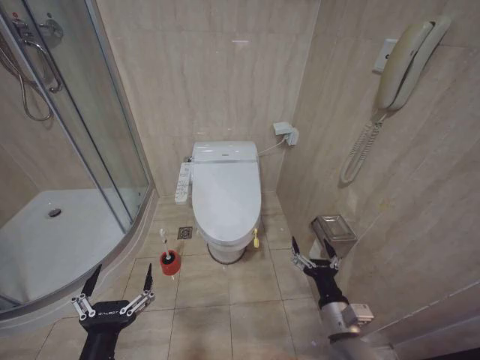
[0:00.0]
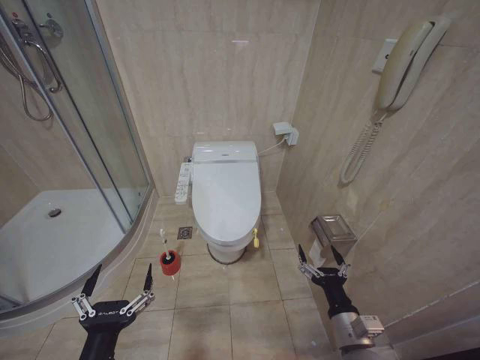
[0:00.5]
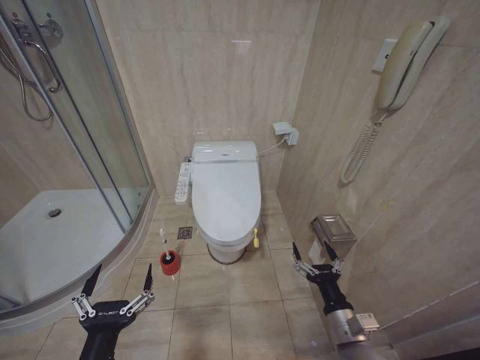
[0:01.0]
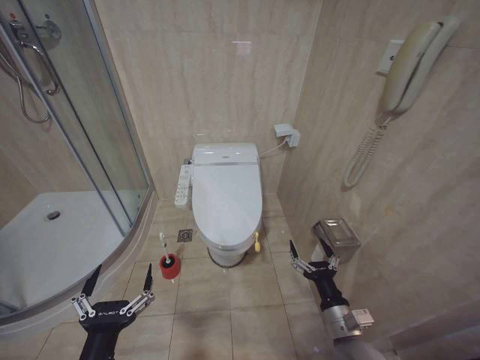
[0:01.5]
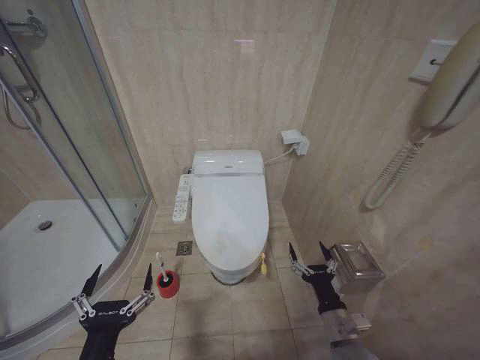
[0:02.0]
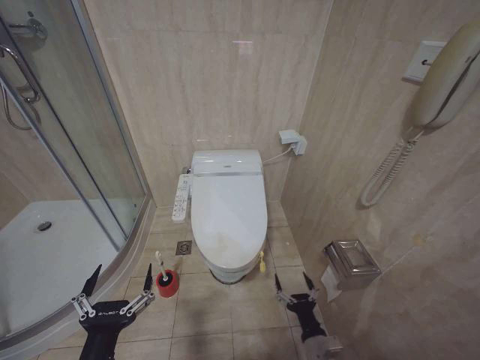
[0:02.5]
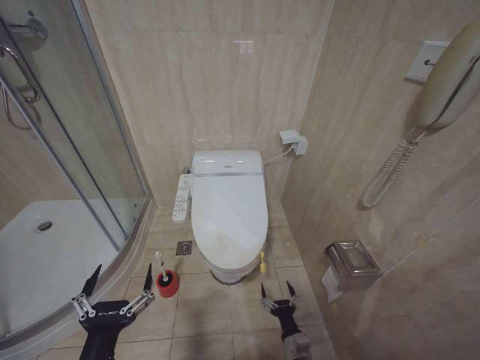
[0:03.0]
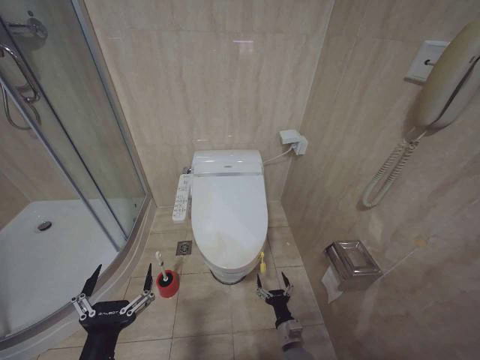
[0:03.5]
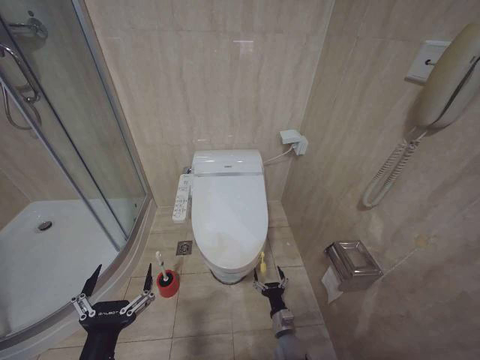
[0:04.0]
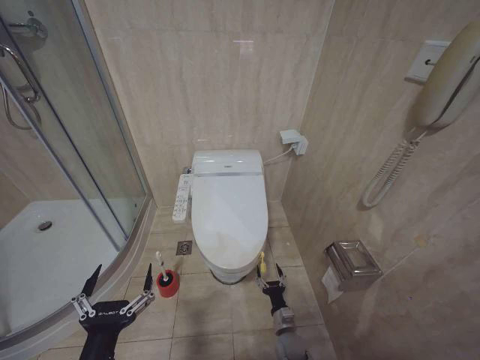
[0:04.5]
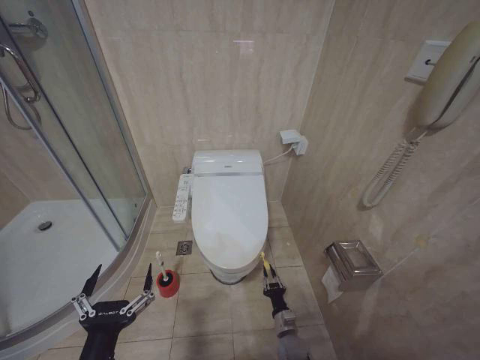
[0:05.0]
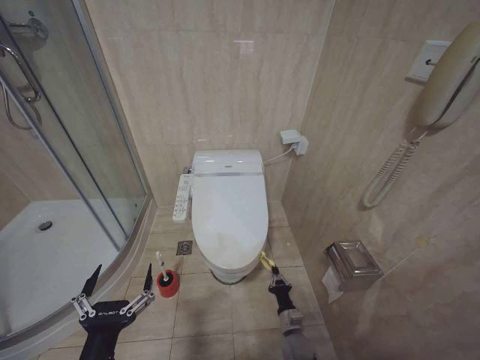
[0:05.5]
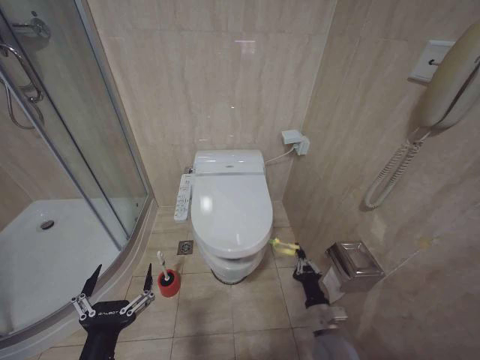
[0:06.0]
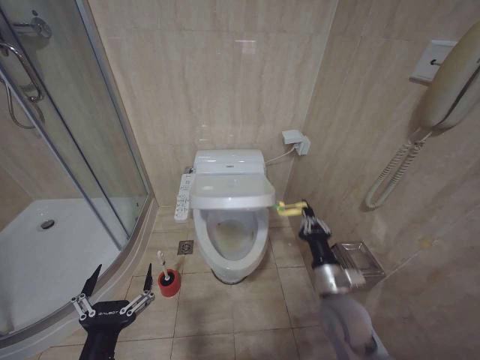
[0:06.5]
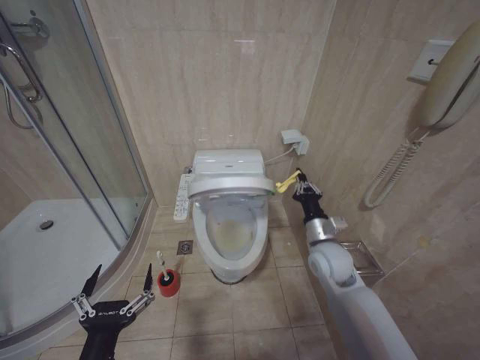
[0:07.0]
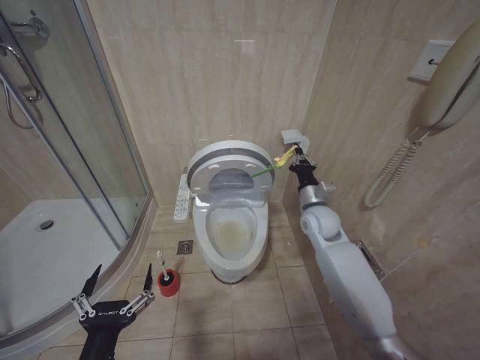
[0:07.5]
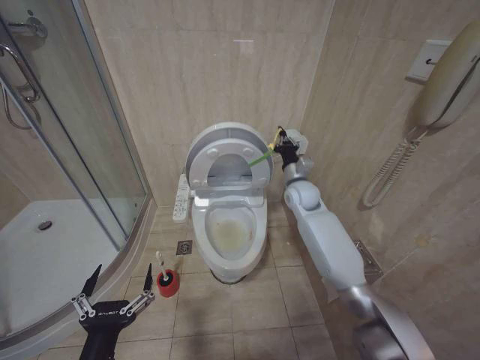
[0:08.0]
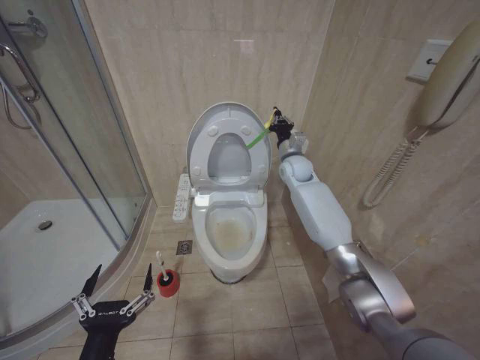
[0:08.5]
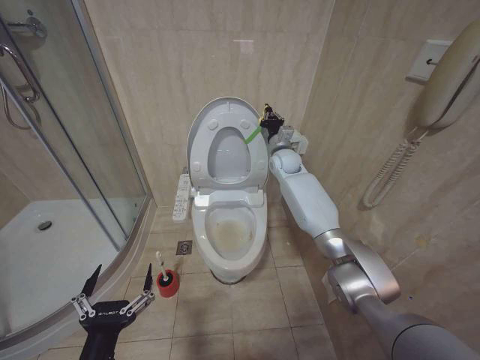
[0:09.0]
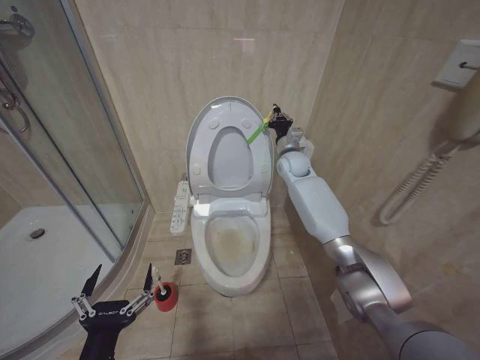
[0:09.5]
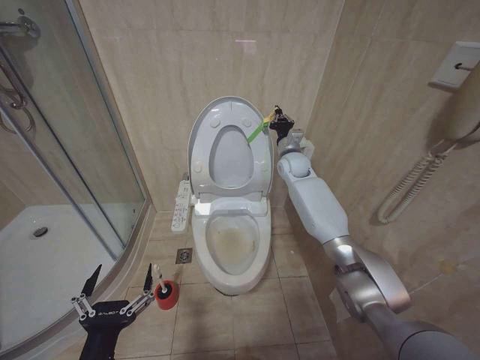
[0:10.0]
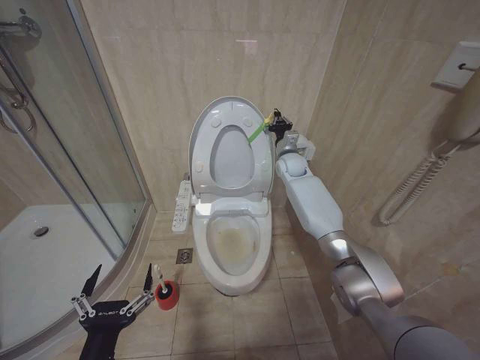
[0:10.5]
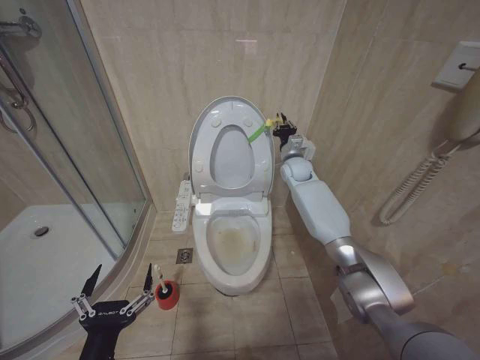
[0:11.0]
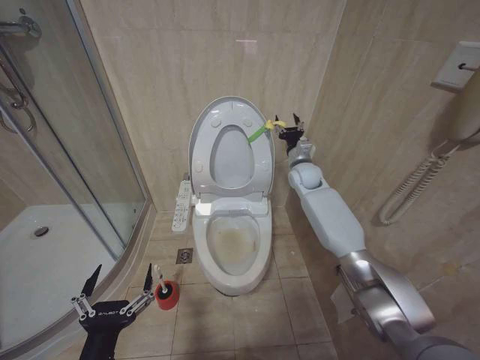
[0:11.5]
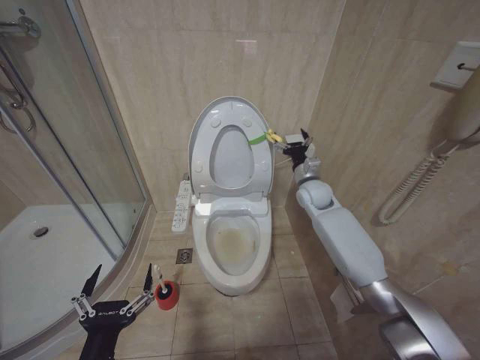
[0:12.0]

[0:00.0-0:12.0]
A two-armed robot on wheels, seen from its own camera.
Task of the whole recording: Open the toilet lid, clean the toilet bowl with a toilet brush, close the toilet lid, and flush.
0:02.0 to 0:04.0: The right gripper travels downward by roughly 20 cm.
0:04.0 to 0:06.0: The right gripper shifts some 15 cm upward and to the right, and closes.
0:06.0 to 0:08.0: The right gripper is displaced forward and upward by roughly 40 cm.
0:08.0 to 0:10.0: The right gripper travels forward and upward by approximately 10 cm.
0:10.0 to 0:12.0: The right gripper moves backward, to the right and downward, approximately 10 cm, and opens.

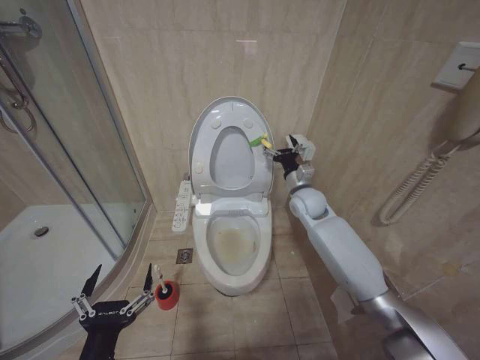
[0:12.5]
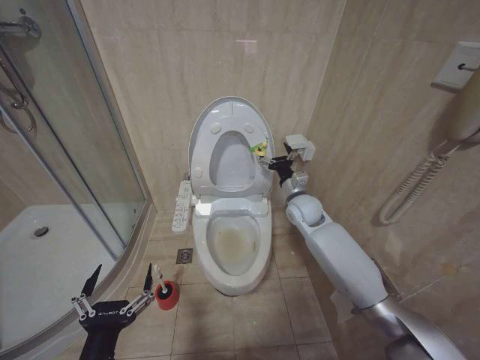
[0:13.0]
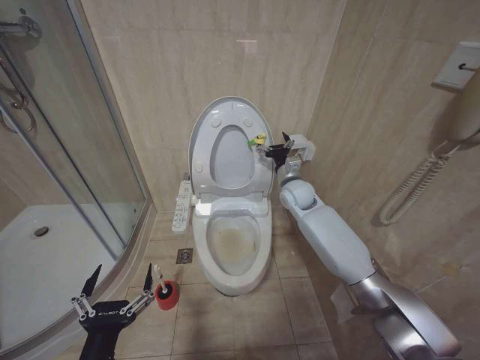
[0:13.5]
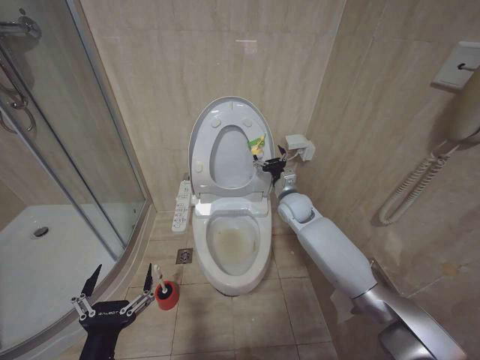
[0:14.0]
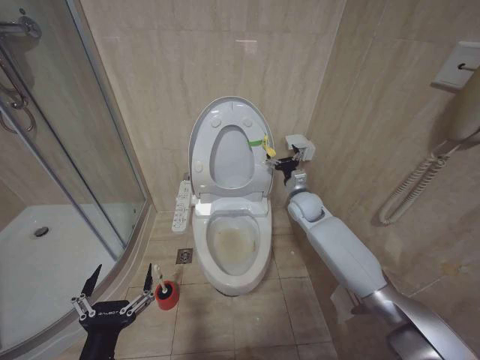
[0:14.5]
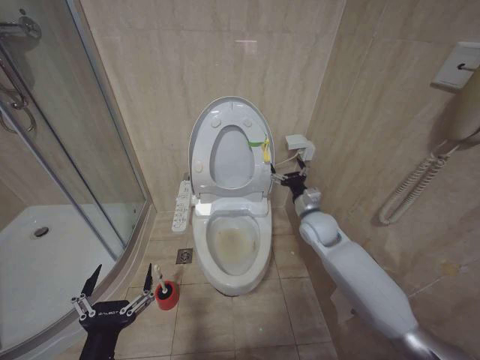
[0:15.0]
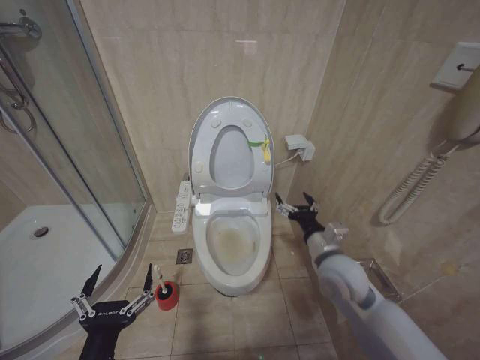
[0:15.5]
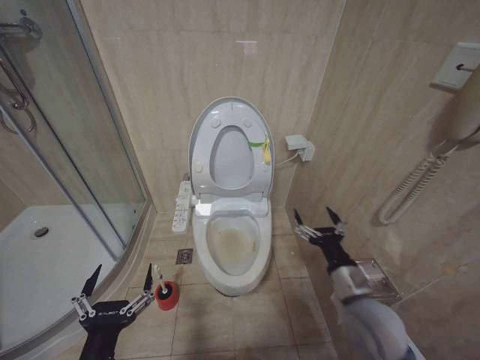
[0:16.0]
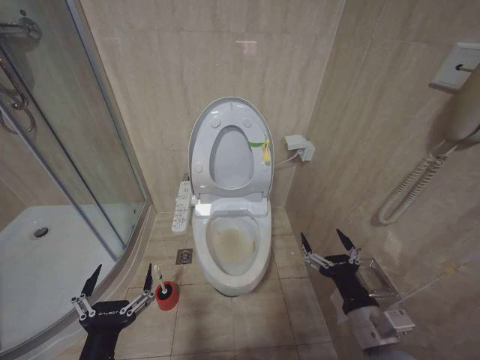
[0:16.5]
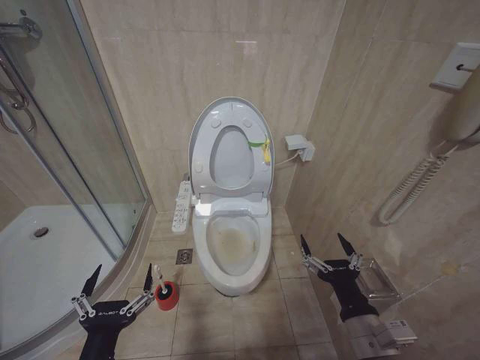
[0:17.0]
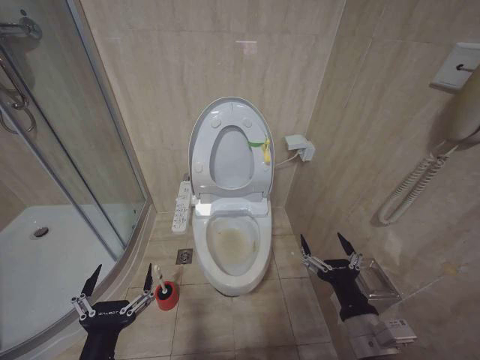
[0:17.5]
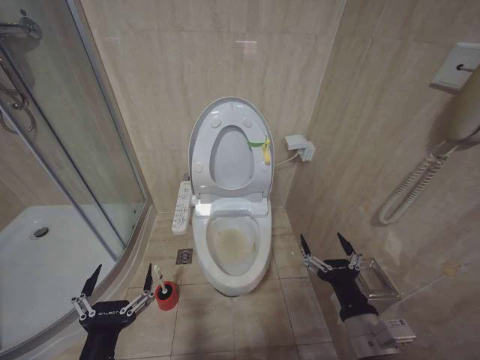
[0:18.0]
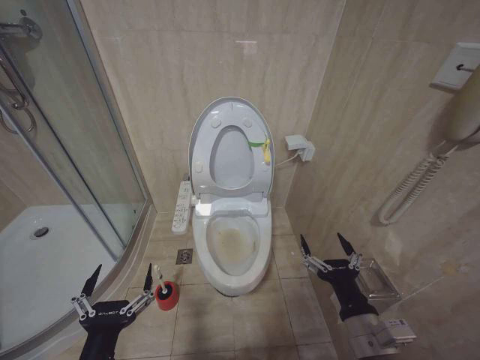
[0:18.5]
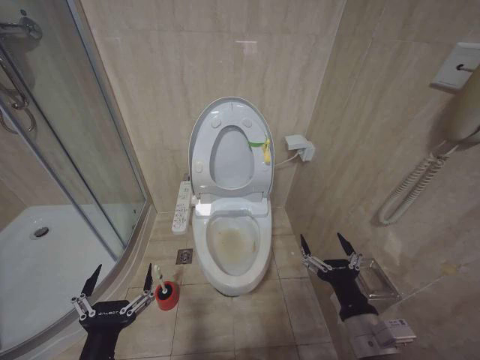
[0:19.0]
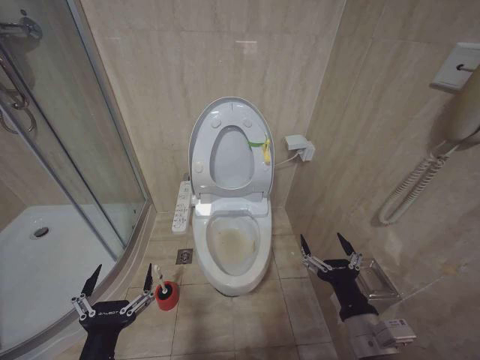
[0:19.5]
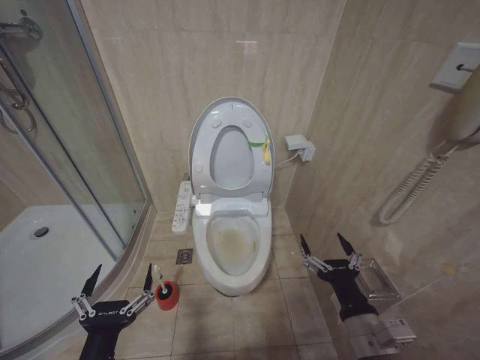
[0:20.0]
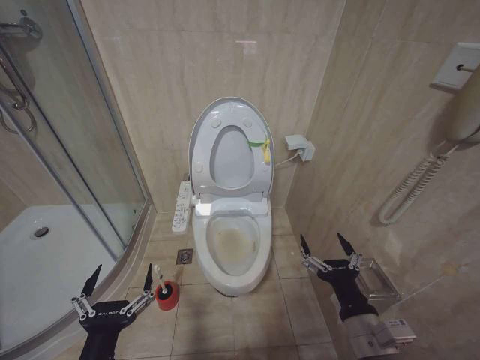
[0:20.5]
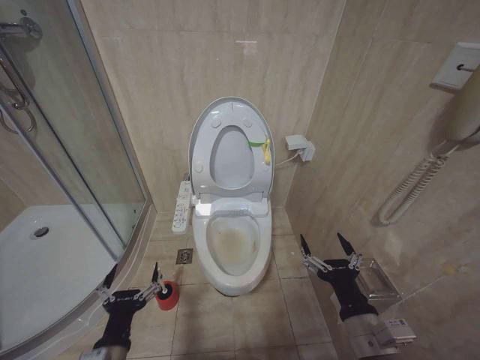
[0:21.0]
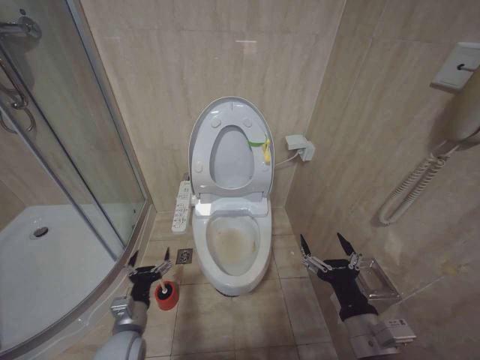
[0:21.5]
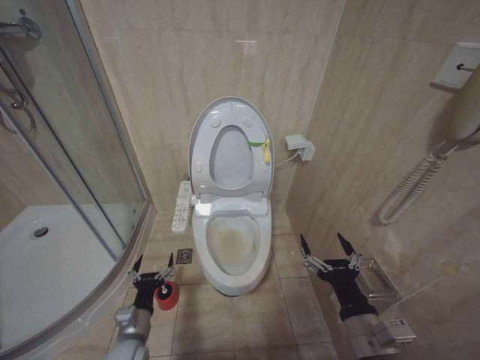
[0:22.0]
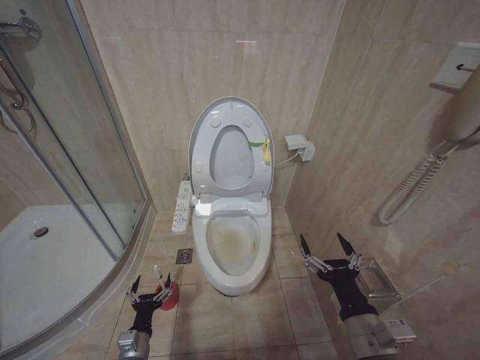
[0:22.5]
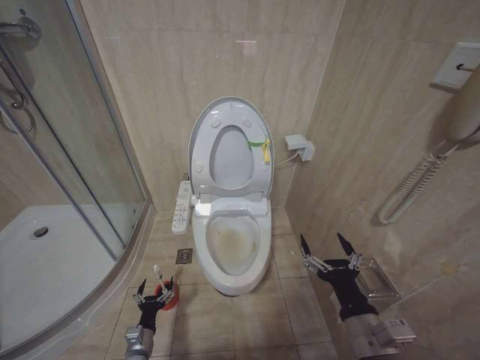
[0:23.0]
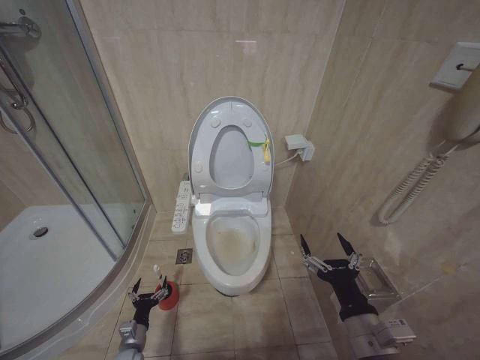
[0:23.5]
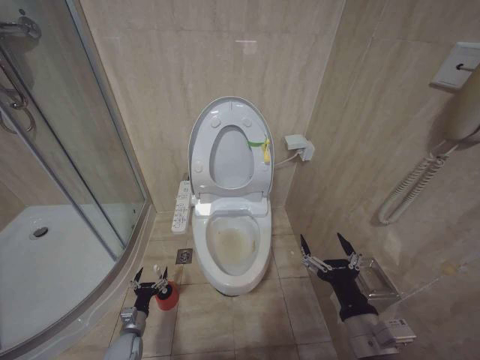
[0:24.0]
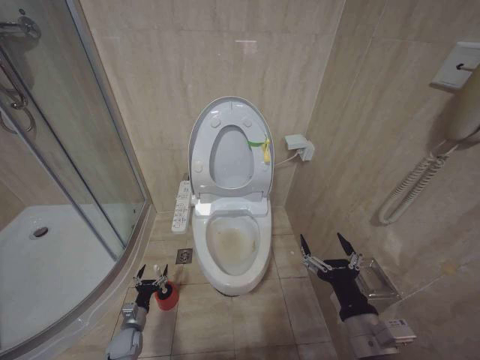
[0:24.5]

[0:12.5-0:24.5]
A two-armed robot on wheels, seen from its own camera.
Task of the whole recording: Open the toilet lid, clean the toilet bowl with a toilet brush, close the toilet lid, and flush.
0:12.5 to 0:14.5: The grippers stay close to where they were, moving slightly.
0:14.5 to 0:16.5: The right gripper moves backward, about 35 cm.
0:16.5 to 0:18.5: There are only small adjustments of the grippers.
0:18.5 to 0:20.5: Both grippers stay about where they are.
0:20.5 to 0:22.5: The left gripper heads downward and forward, covering some 25 cm.
0:22.5 to 0:24.5: The left gripper moves downward, forward and to the left, roughly 15 cm.

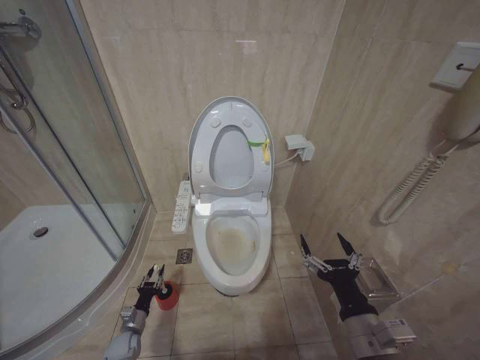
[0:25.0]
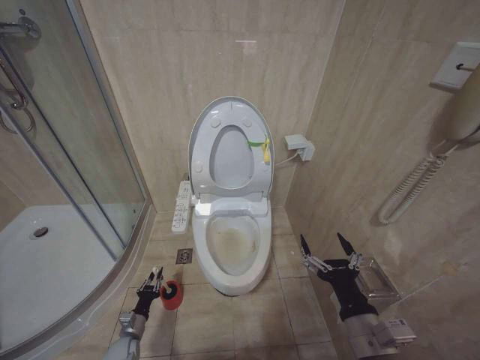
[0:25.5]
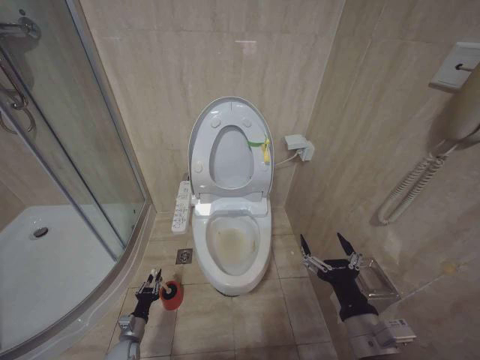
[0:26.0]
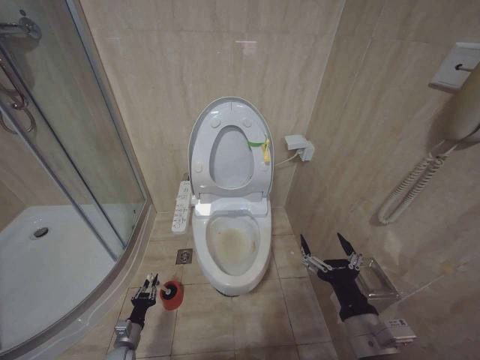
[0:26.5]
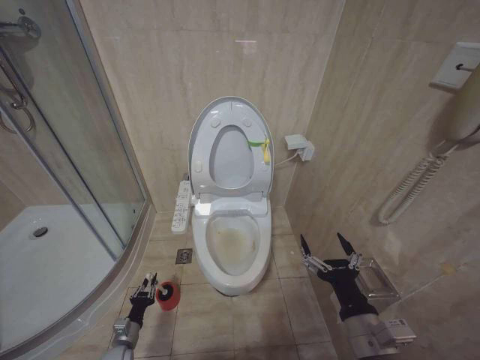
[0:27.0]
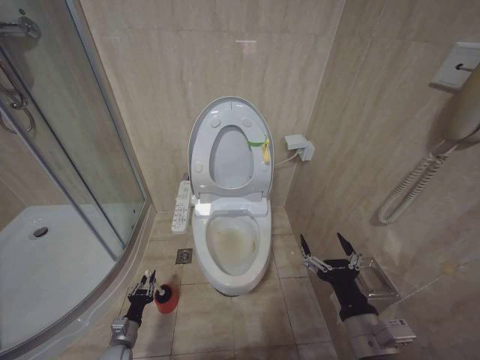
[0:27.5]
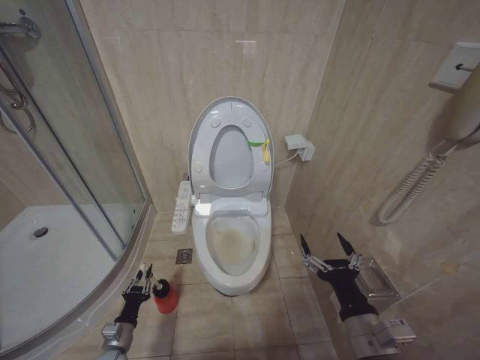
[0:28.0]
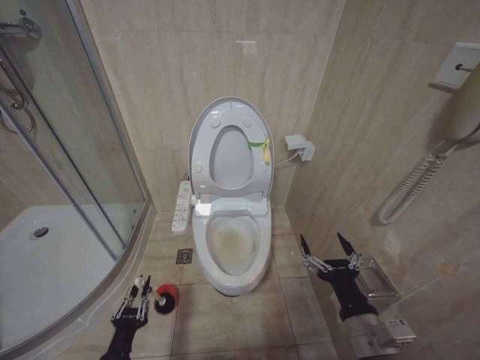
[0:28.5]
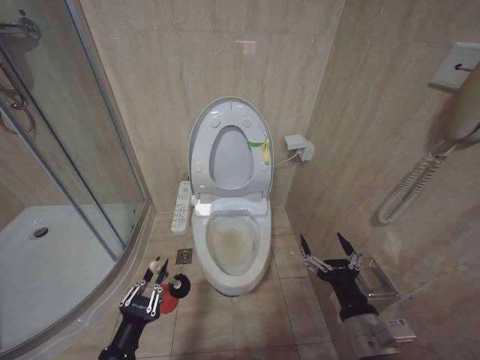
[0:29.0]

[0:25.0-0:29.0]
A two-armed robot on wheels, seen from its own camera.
Task of the whole recording: Open the toilet lid, clean the toilet bowl with a toilet brush, close the toilet lid, and flush.
0:25.0 to 0:27.0: The left gripper closes.
0:27.0 to 0:29.0: The left gripper is displaced upward and backward by some 30 cm.
